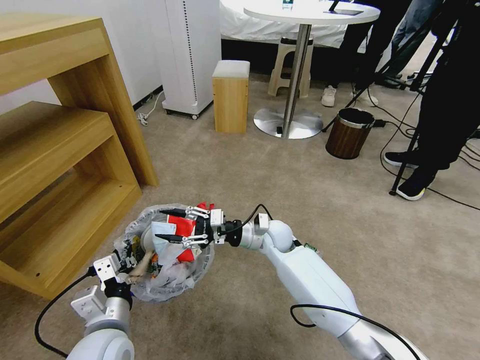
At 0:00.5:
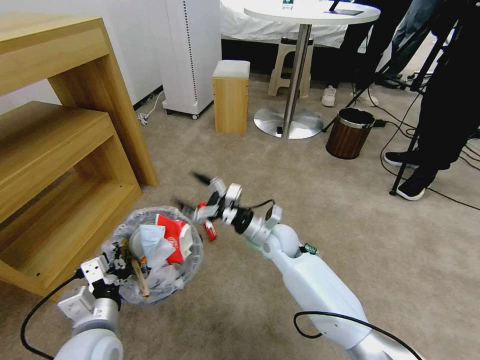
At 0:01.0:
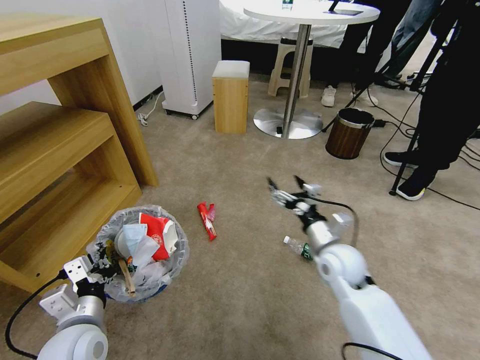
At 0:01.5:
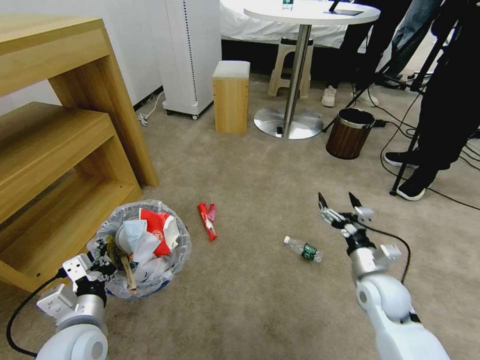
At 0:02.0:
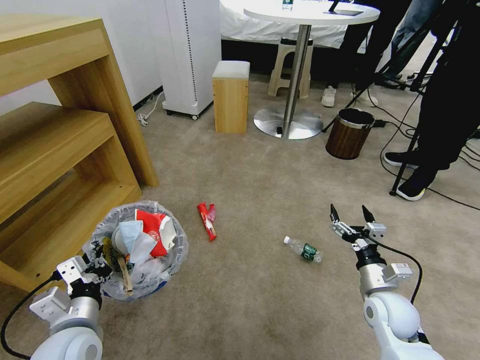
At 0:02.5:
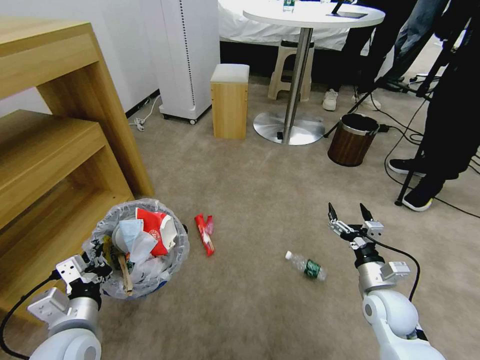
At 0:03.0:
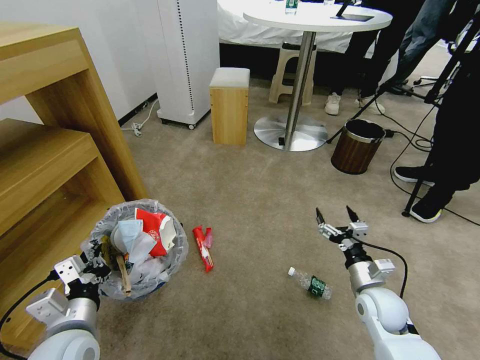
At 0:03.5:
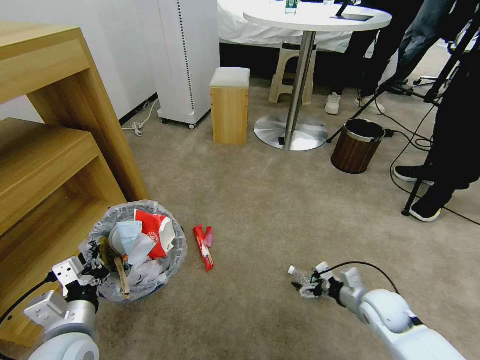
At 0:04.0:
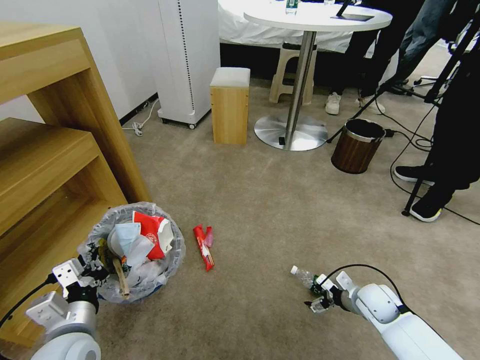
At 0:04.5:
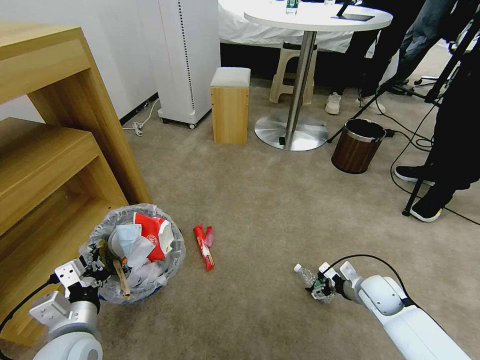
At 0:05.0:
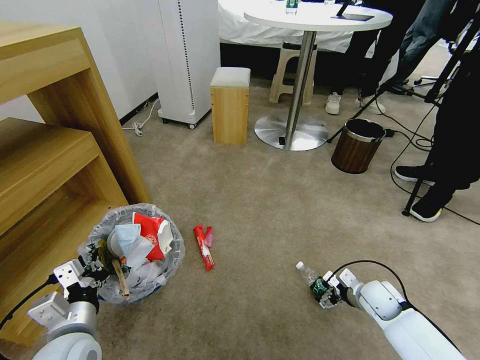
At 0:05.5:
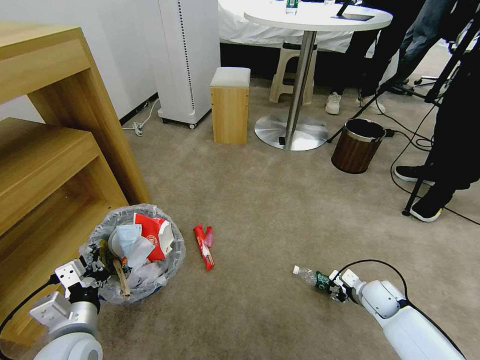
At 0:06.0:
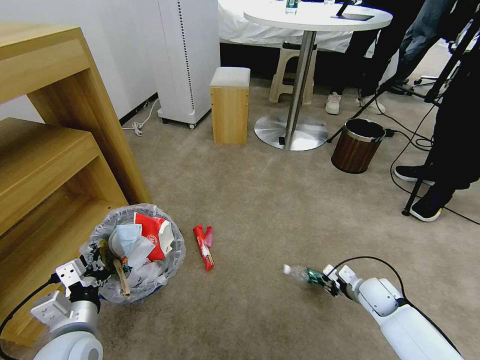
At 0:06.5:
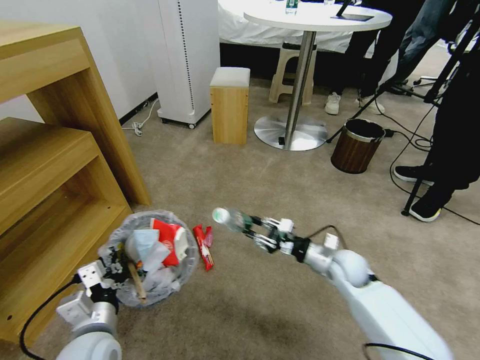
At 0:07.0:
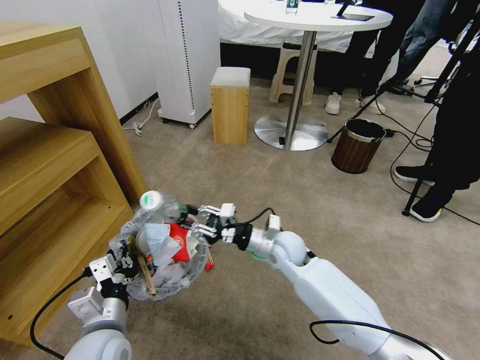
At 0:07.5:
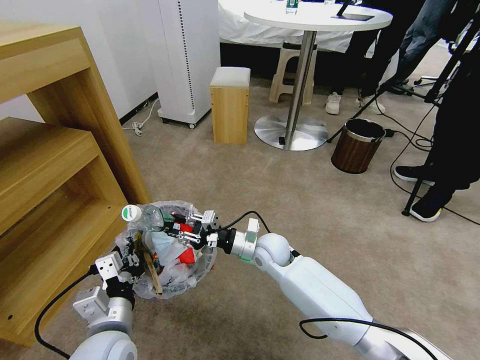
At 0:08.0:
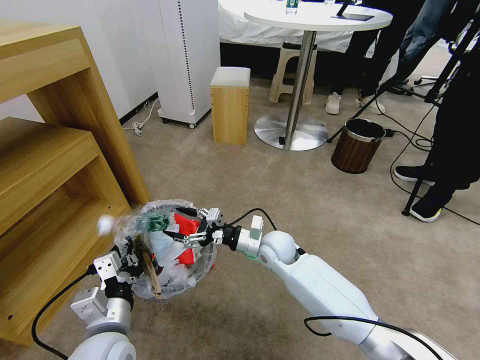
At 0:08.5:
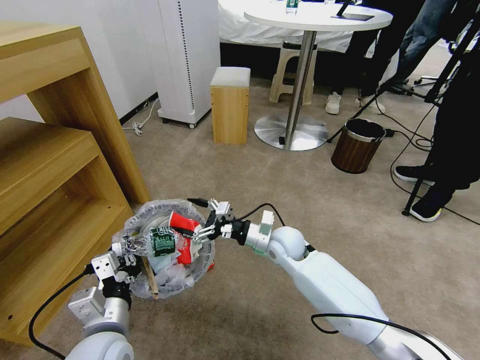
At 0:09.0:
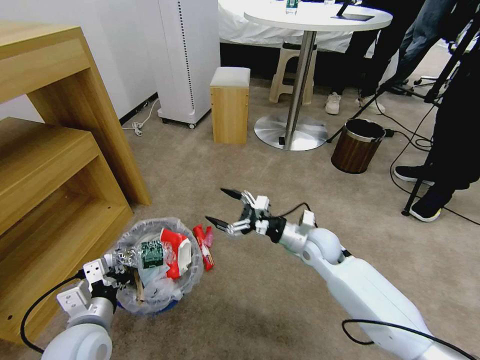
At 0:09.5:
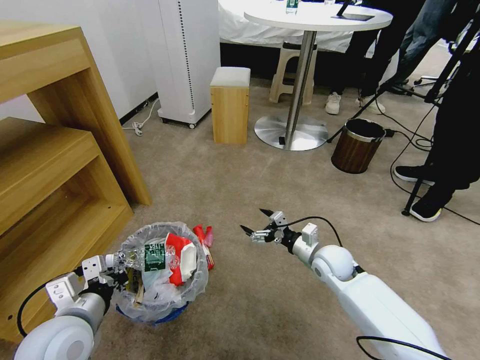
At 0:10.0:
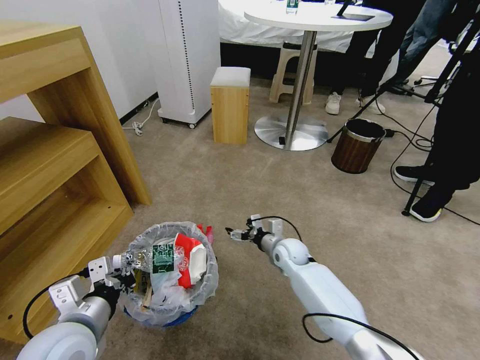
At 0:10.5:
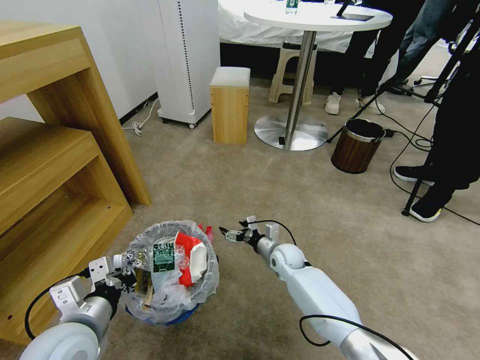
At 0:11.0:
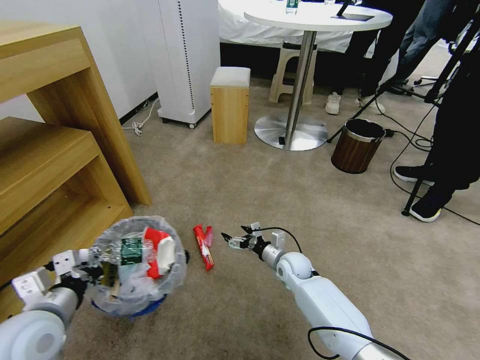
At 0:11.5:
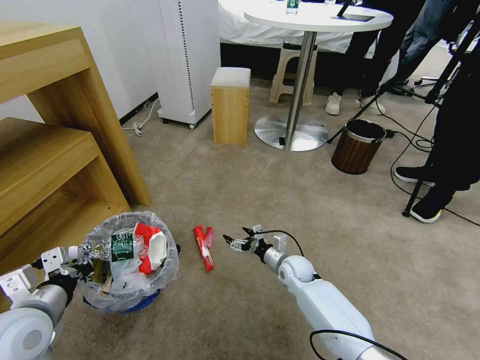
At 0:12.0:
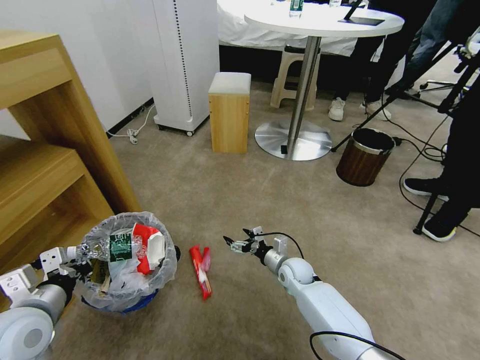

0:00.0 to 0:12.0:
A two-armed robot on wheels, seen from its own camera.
Task of the whole recording: Pick up the trash bin and place the garbage on the floor into it.
0:00.0 to 0:02.0: The left gripper goes approximately 5 cm to the left. The right gripper goes roughly 30 cm to the right and backward, and opens.
0:02.0 to 0:04.0: The right gripper heads downward, covering some 10 cm.
0:04.0 to 0:06.0: The right gripper closes.
0:06.0 to 0:08.0: The left gripper goes roughly 5 cm to the right. Meanwhile the right gripper heads to the left, covering about 30 cm, and opens its fingers.
0:08.0 to 0:10.0: The right gripper moves downward and to the right, approximately 10 cm, while the left gripper travels to the left by roughly 5 cm.
0:10.0 to 0:12.0: The right gripper shifts by roughly 5 cm; the left gripper is displaced to the left by about 10 cm.

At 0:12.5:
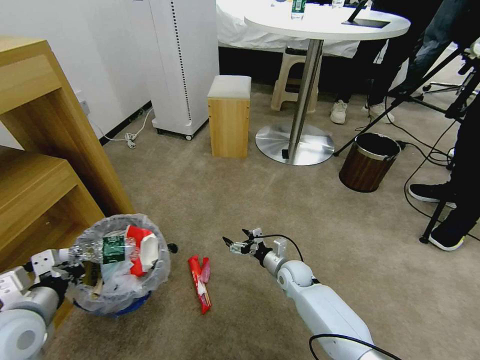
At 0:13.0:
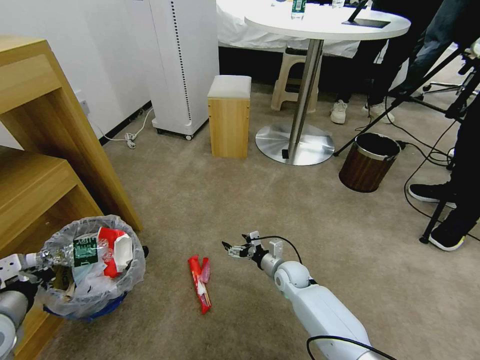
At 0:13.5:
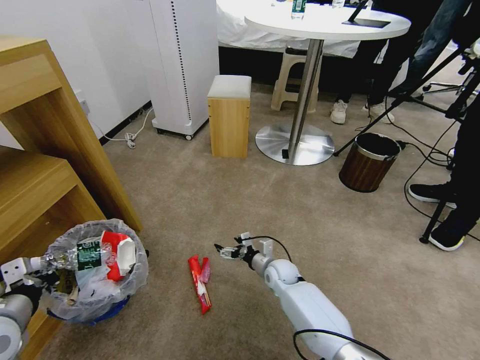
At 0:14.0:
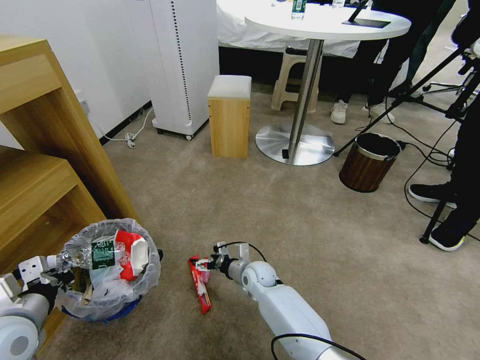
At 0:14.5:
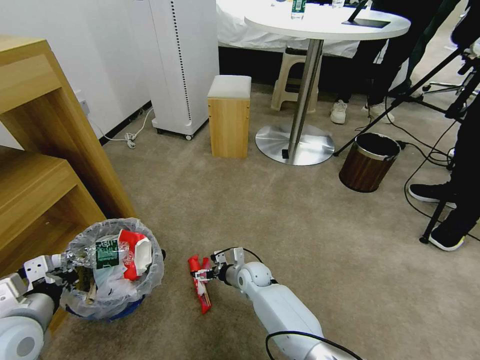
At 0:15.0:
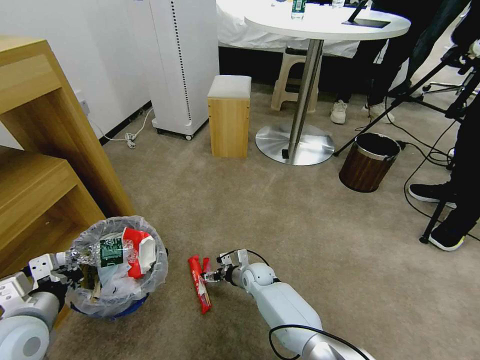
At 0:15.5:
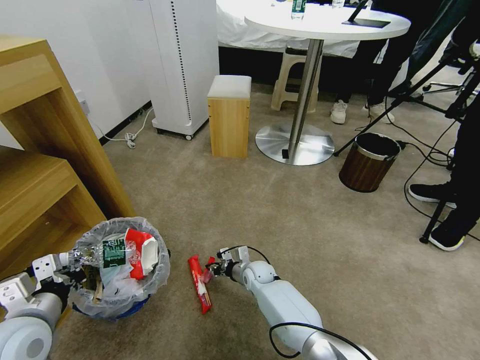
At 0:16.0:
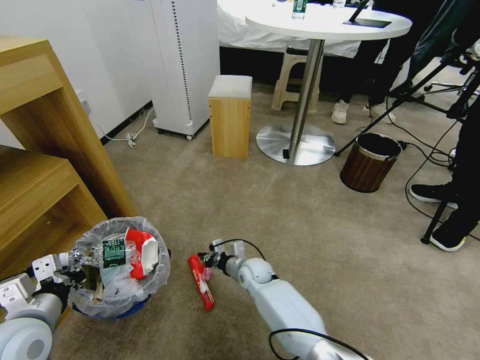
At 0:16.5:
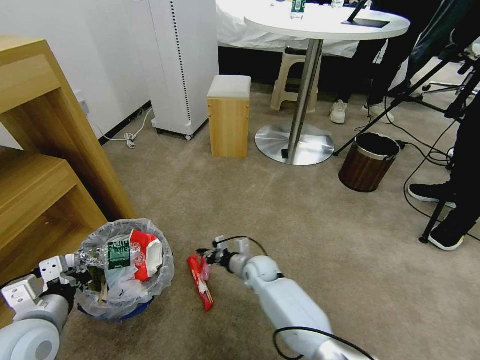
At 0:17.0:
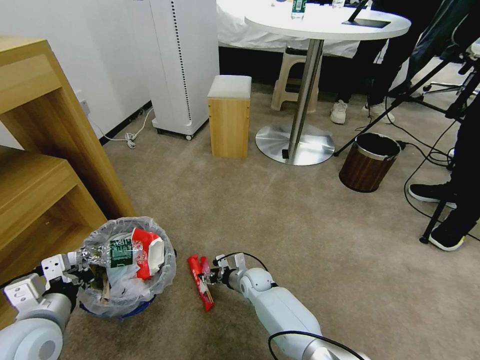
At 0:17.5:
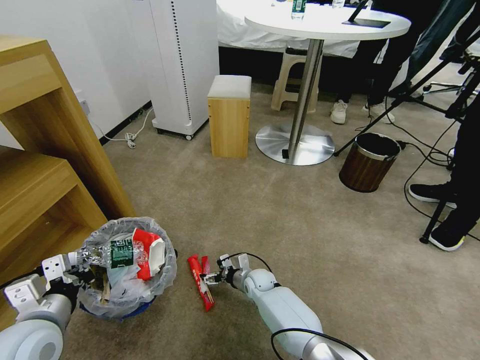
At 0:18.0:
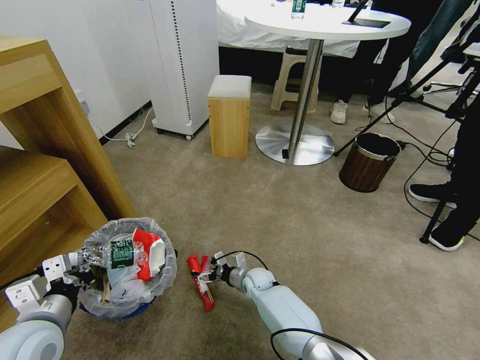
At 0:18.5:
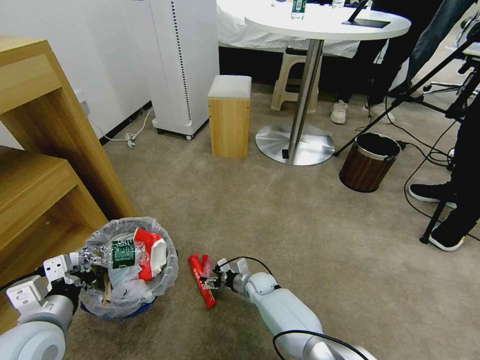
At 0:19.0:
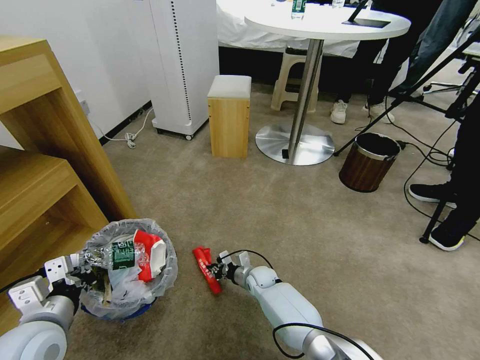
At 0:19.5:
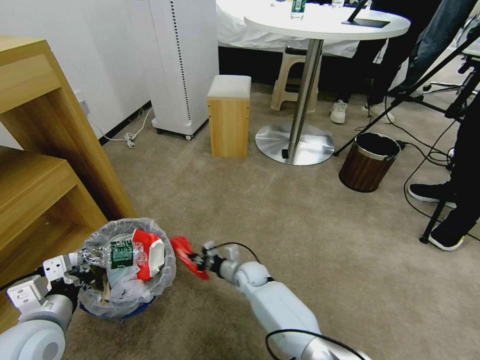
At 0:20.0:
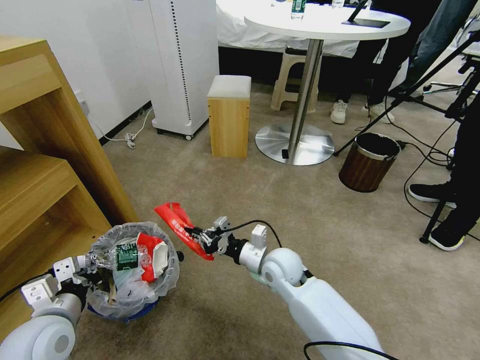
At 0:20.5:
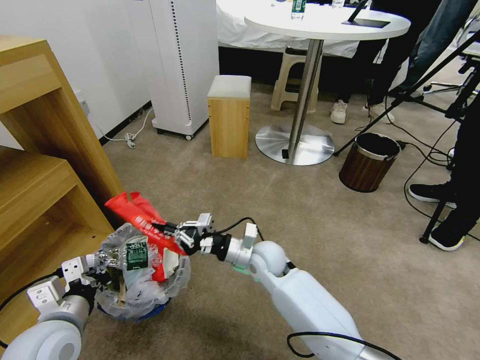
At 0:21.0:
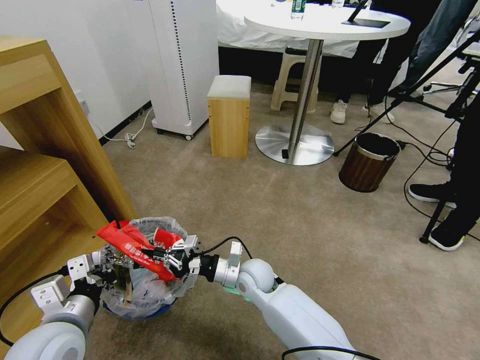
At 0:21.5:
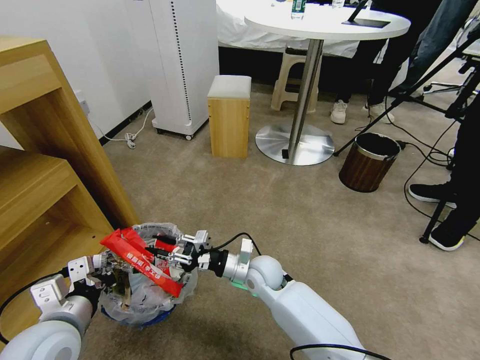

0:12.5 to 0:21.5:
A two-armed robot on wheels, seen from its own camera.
Task of the whole recording: Pick up the trash bin and place the garbage on the floor into it.
0:12.5 to 0:14.5: The right gripper goes about 10 cm to the left.
0:14.5 to 0:17.0: The right gripper closes its fingers.
0:17.0 to 0:19.5: The right gripper closes up.
0:19.5 to 0:21.5: The right gripper shifts some 10 cm upward, and opens its fingers.

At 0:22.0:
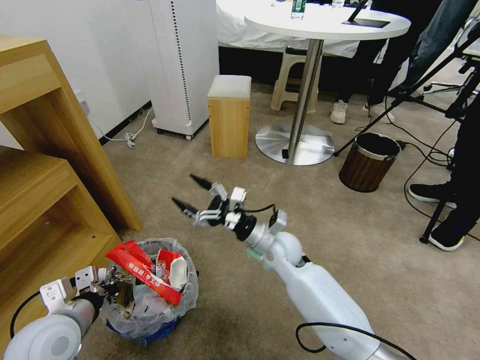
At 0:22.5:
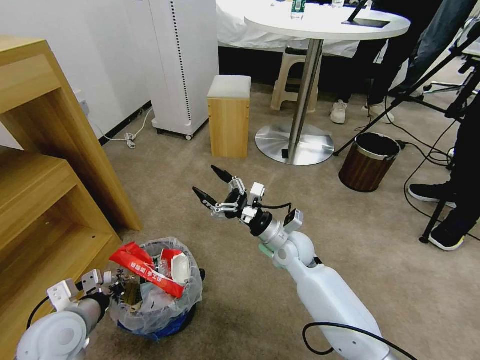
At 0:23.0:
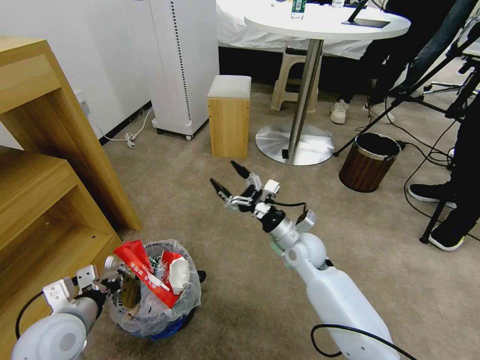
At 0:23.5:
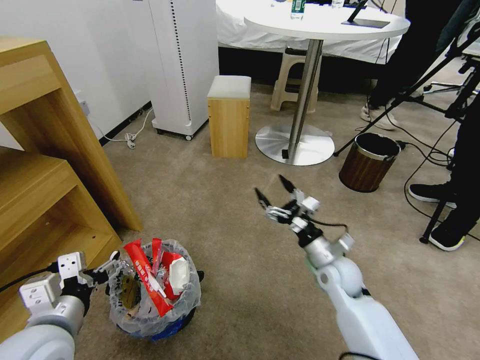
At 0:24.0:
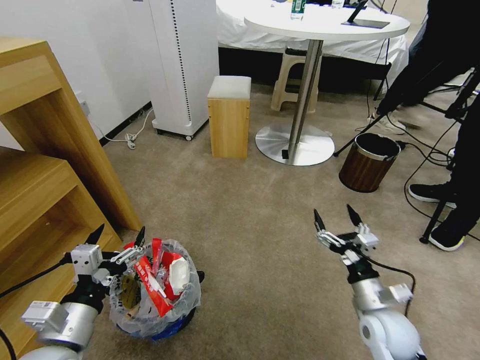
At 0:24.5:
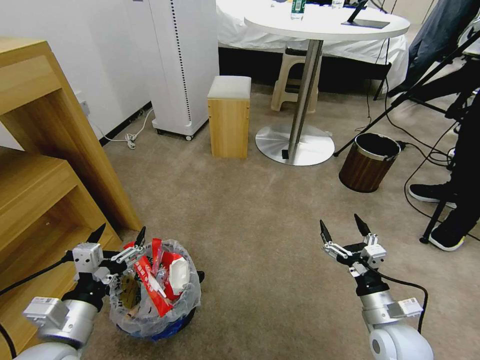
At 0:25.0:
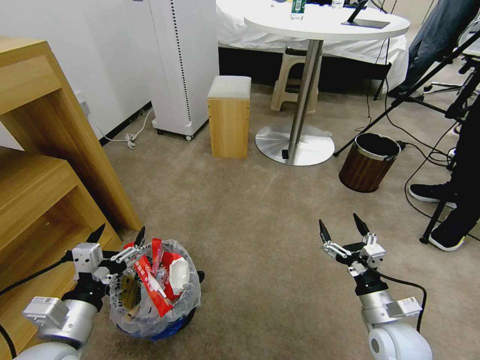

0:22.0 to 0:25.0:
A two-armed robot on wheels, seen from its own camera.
Task of the whole recording: Pick up the trash bin and place the garbage on the floor into it.
0:22.0 to 0:23.5: The left gripper ends up approximately 5 cm from where it was, and opens up, while the right gripper heads to the right, covering about 15 cm.
0:23.5 to 0:25.0: The right gripper travels backward and to the right by about 15 cm.

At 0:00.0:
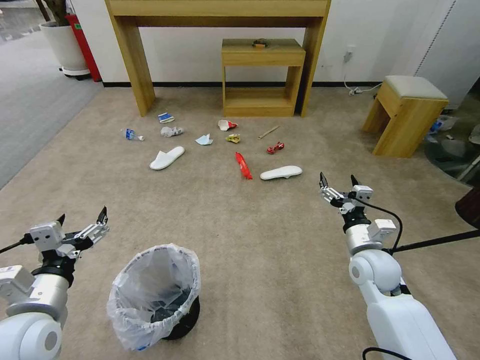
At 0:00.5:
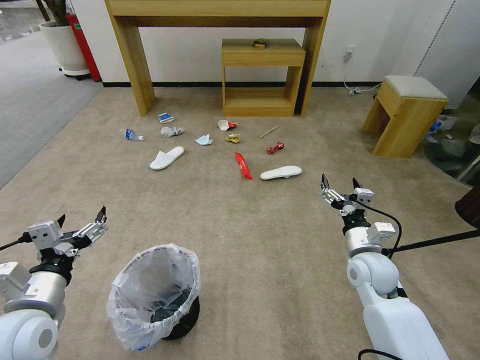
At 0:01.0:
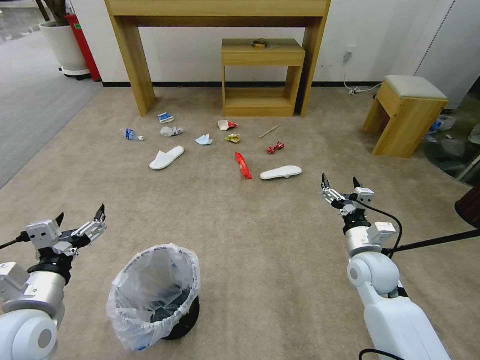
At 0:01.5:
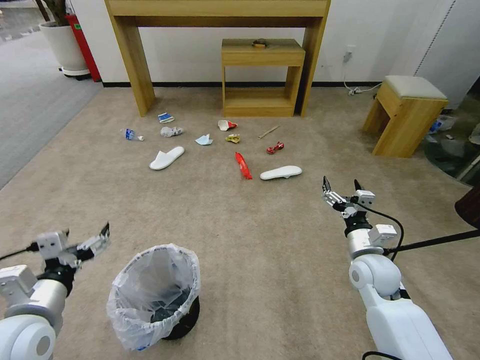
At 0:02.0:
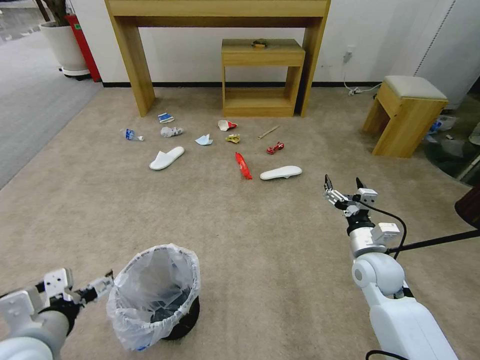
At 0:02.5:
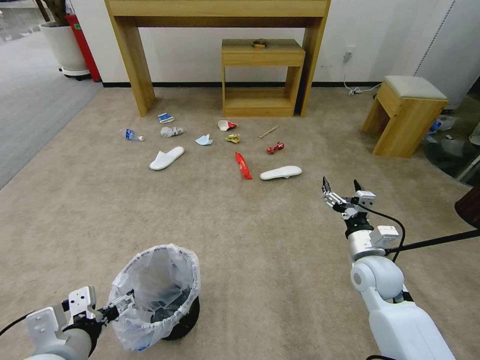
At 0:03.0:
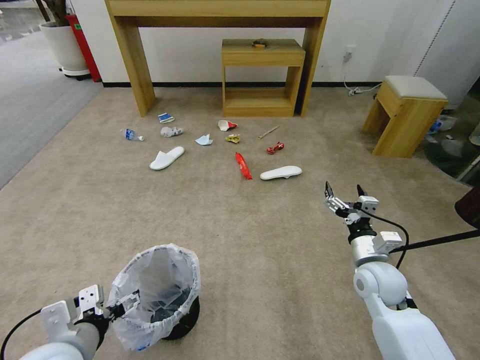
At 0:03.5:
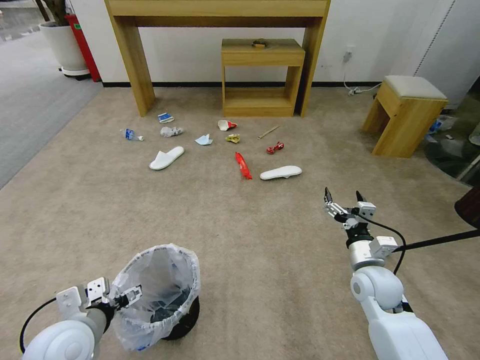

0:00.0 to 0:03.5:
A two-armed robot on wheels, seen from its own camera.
Task of the whole recording: Pick up the trash bin and place the garbage on the floor into it.
0:02.0 to 0:03.5: The left gripper is displaced downward by about 5 cm.
